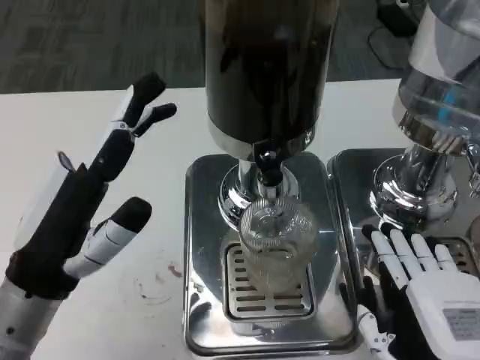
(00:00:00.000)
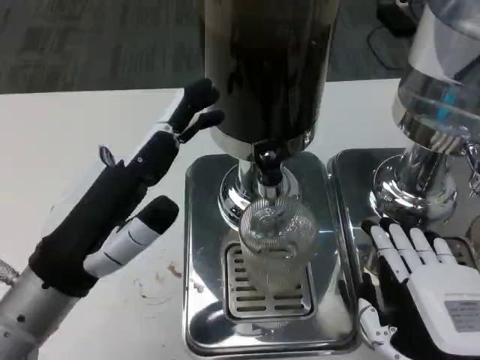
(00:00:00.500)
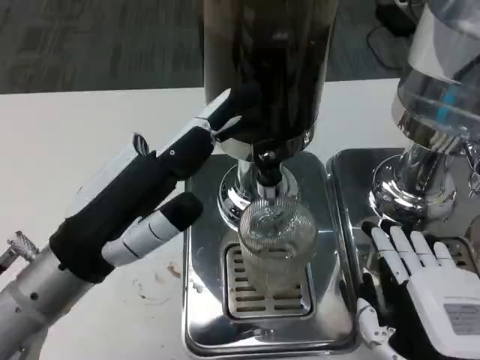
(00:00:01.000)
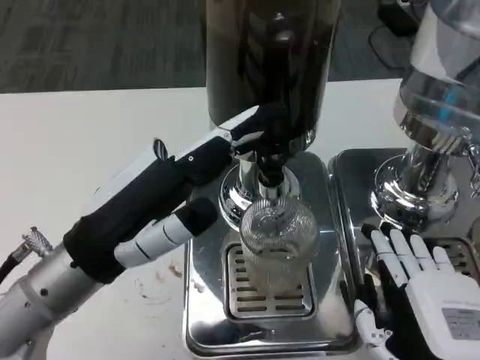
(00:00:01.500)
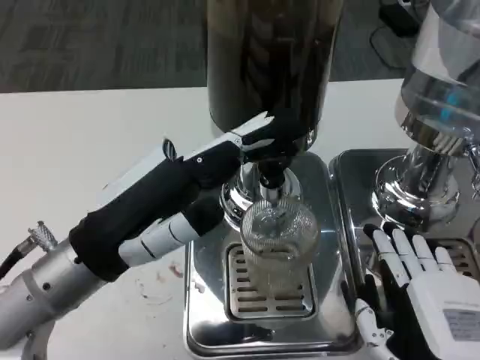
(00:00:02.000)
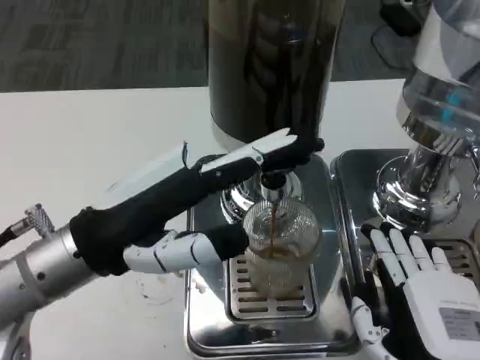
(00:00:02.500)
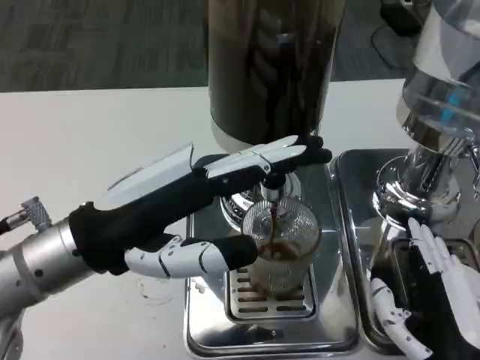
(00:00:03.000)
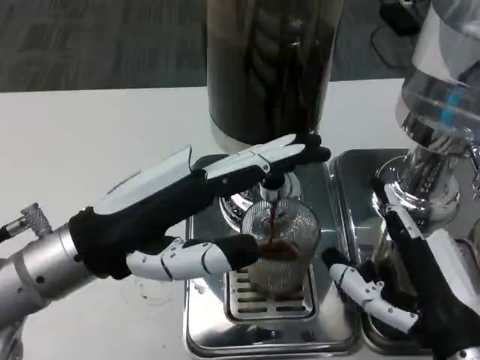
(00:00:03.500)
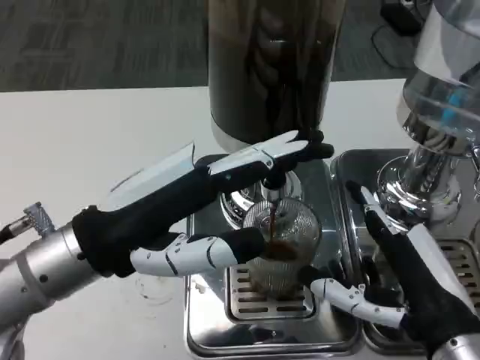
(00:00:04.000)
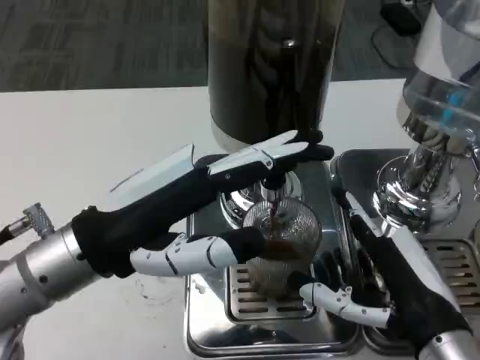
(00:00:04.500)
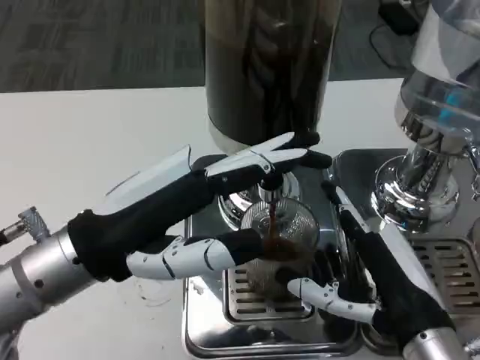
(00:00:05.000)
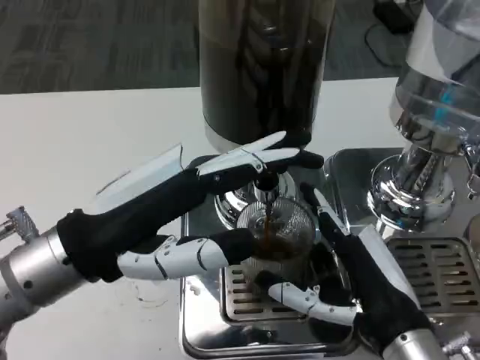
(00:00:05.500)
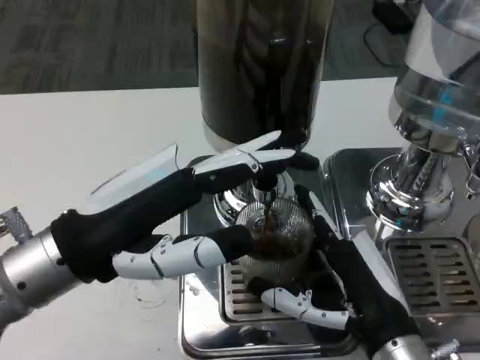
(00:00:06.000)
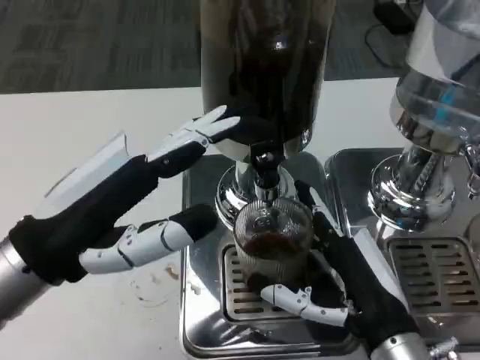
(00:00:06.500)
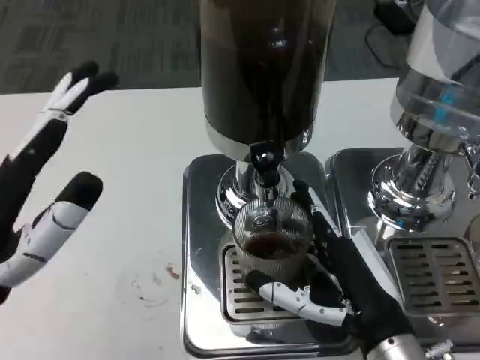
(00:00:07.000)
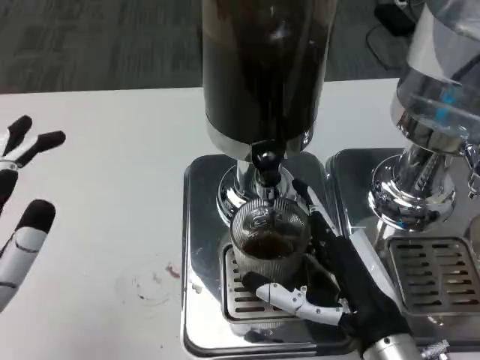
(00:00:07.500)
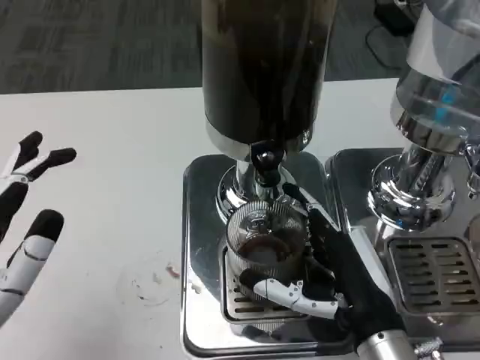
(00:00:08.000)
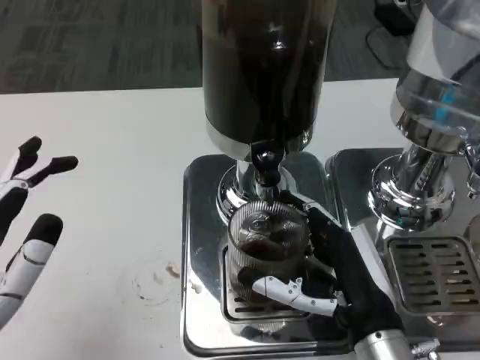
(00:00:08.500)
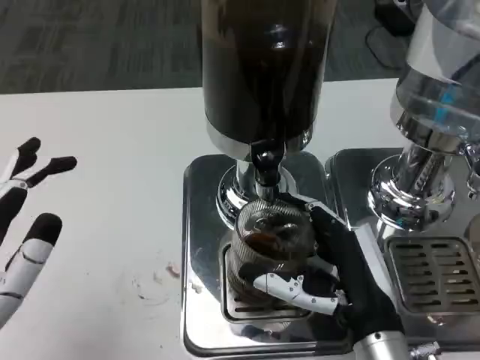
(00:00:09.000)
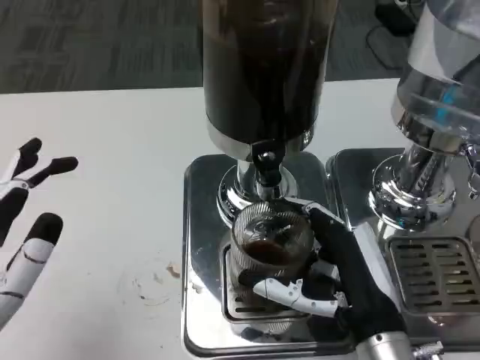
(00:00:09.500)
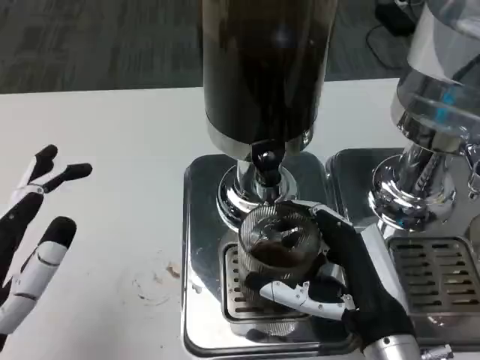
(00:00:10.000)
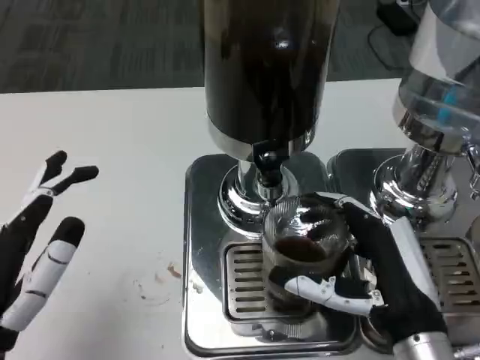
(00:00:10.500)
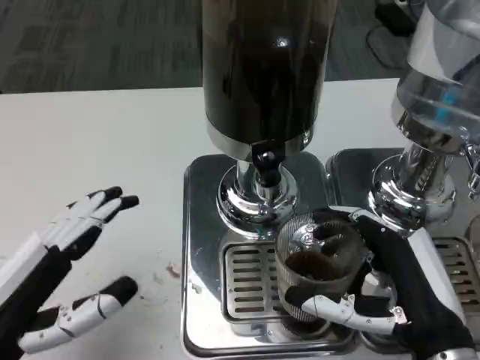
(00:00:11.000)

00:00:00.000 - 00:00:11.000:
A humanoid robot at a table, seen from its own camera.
Task of the whole recording: Grasp the cup under the faucet to collect the drink, then remove the cup.
00:00:00.000 - 00:00:02.000: The left hand moves about 5 cm.
00:00:05.500 - 00:00:07.500: The left hand heads backward, downward and to the left, covering about 10 cm.
00:00:07.500 - 00:00:09.000: The hands make only small movements.
00:00:09.000 - 00:00:11.000: The right hand changes place by approximately 5 cm.

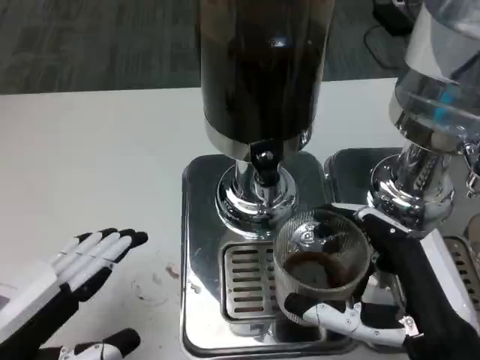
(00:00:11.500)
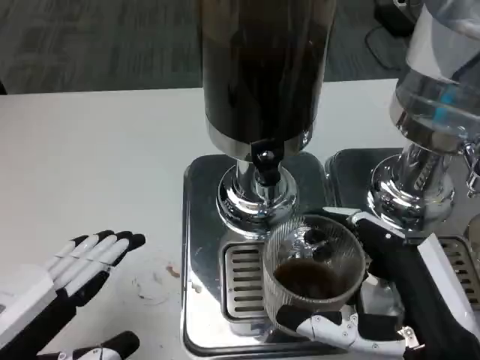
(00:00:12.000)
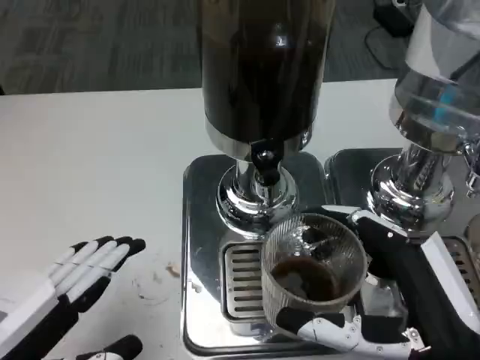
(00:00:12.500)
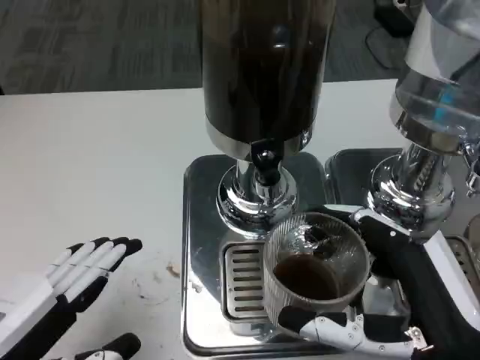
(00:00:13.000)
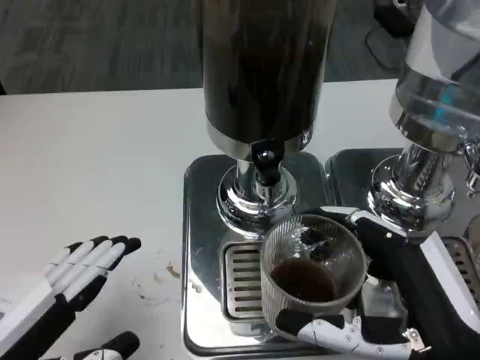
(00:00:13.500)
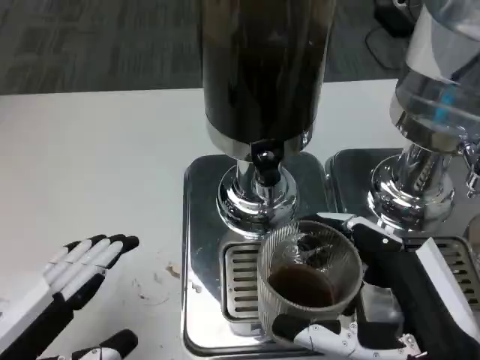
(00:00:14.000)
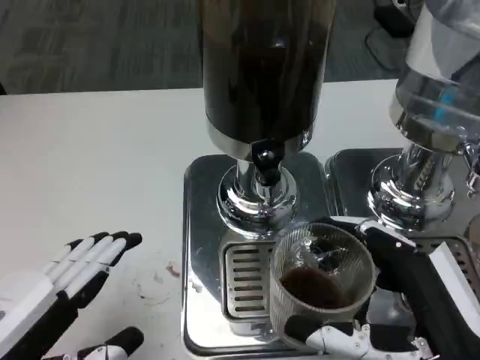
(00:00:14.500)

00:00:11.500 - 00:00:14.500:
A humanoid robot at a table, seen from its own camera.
Task of the whole recording: Grasp the cup under the faucet to collect the drink, then remove the cup.
00:00:11.500 - 00:00:13.000: The hands move only a little.
00:00:13.000 - 00:00:14.500: Both hands stay put.

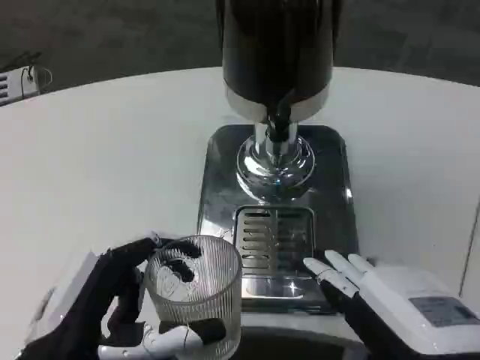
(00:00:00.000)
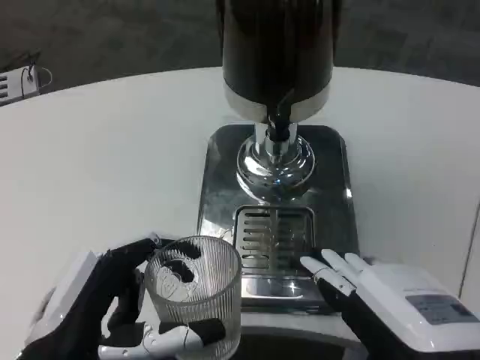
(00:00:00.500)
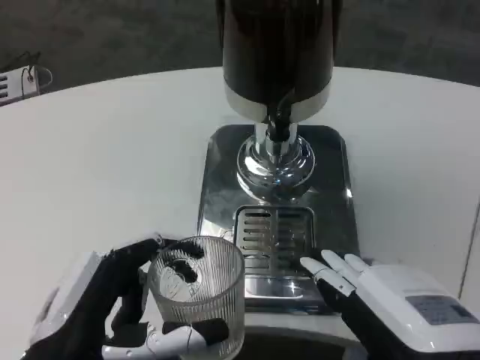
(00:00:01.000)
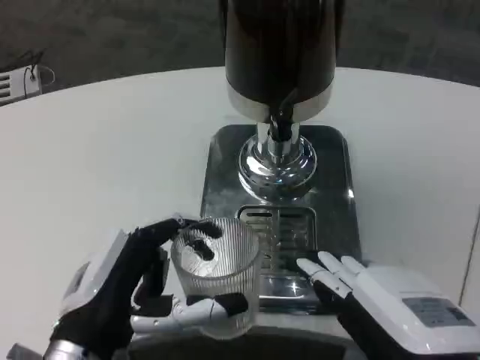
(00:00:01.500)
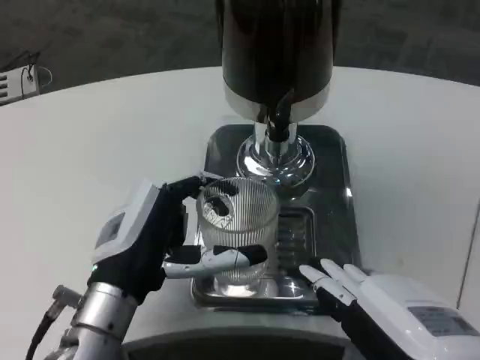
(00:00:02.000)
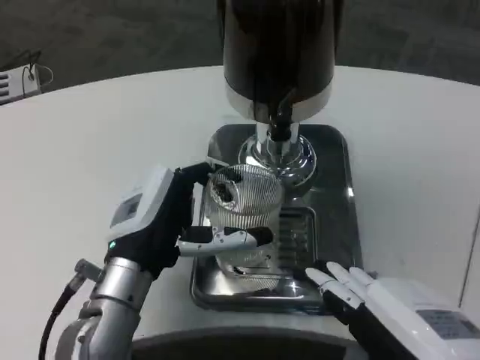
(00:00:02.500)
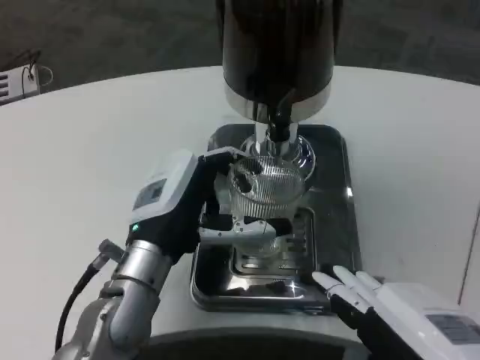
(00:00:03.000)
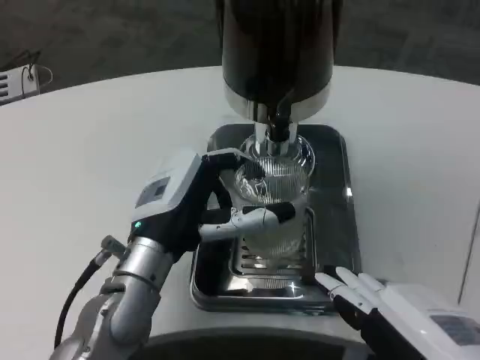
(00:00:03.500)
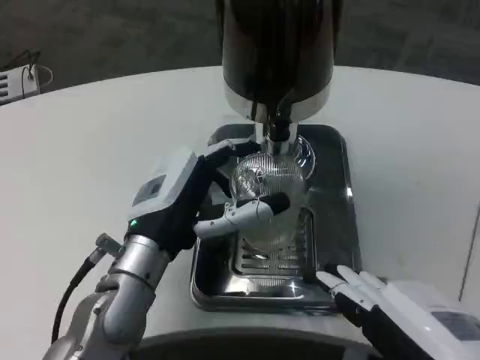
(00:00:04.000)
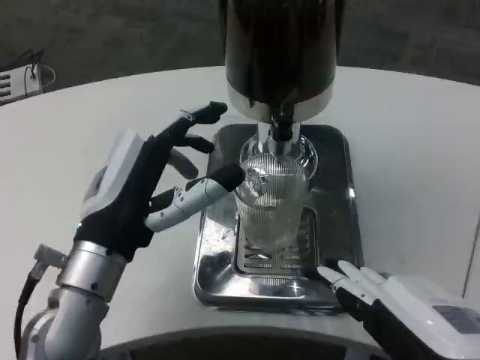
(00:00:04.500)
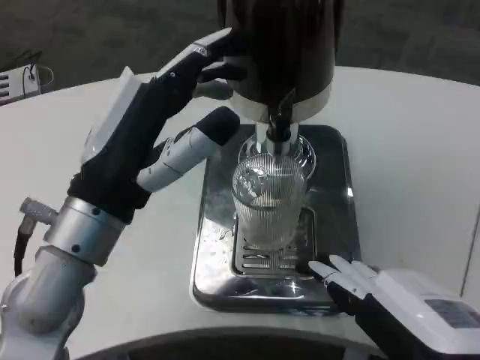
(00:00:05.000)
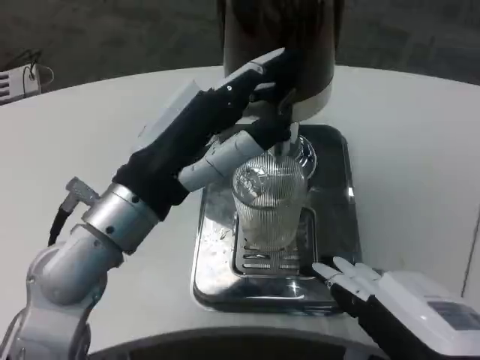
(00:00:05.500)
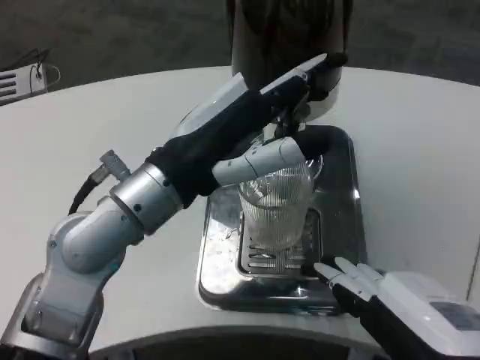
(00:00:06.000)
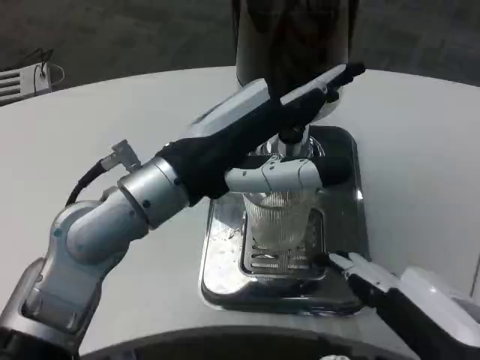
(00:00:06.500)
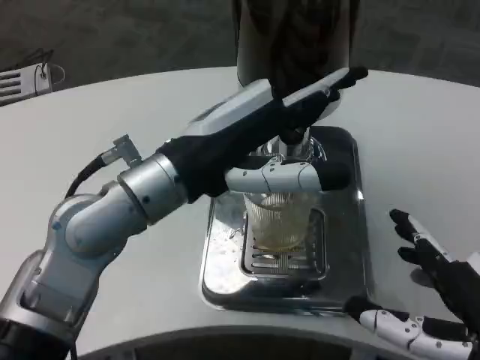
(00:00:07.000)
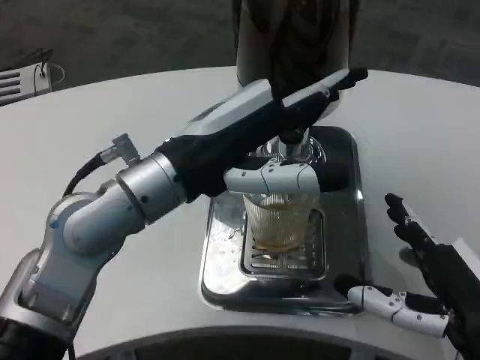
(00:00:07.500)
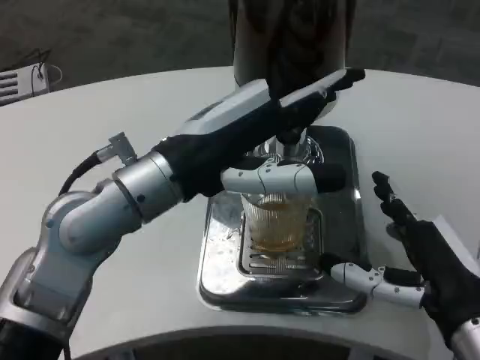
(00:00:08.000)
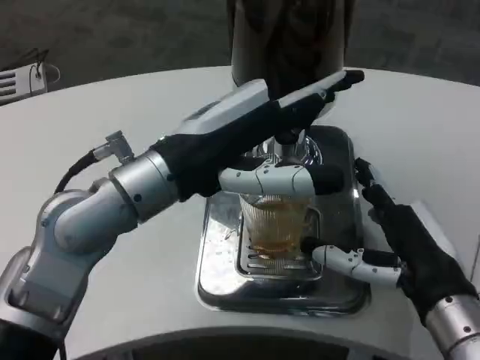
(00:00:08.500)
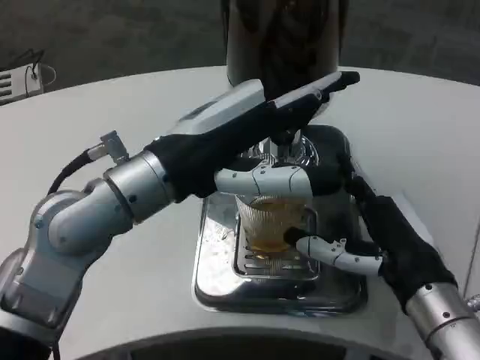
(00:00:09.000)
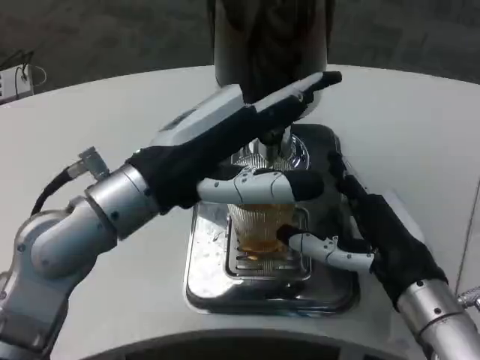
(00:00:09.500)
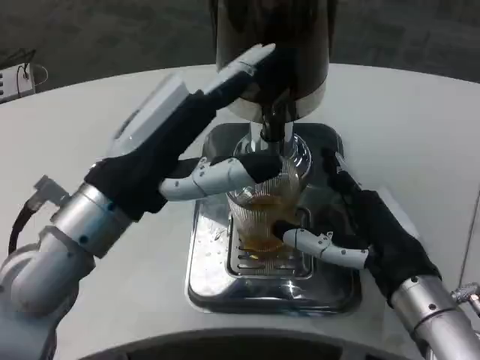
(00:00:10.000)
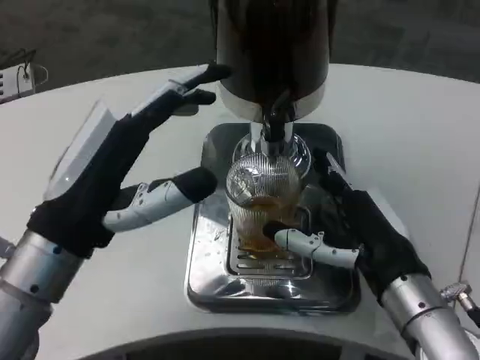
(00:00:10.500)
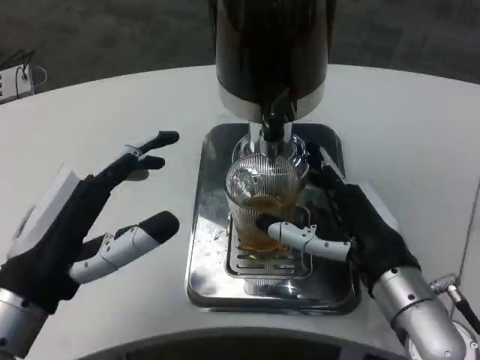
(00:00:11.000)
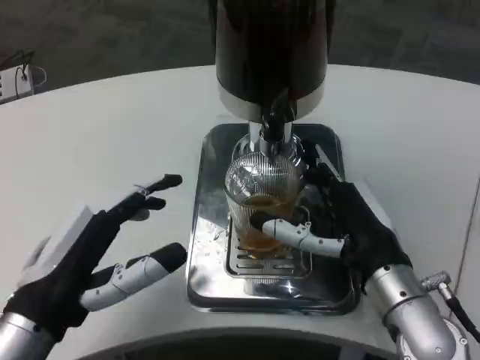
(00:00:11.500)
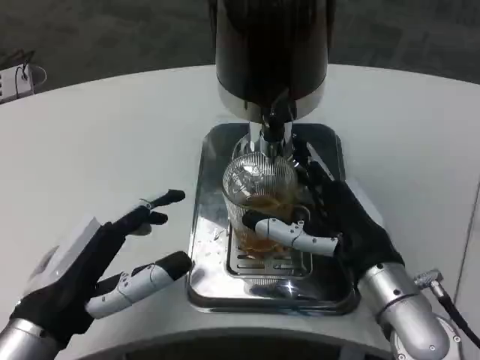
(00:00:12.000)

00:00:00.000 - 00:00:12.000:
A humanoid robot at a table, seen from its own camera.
Task of the whole recording: Grasp the cup under the faucet to collect the drink, then remove the cup.
00:00:00.000 - 00:00:02.000: The left hand goes roughly 10 cm forward.
00:00:02.000 - 00:00:04.000: The left hand changes place by about 5 cm.
00:00:04.000 - 00:00:06.000: The left hand shifts roughly 10 cm upward.
00:00:06.000 - 00:00:08.000: The right hand goes some 10 cm forward.
00:00:08.000 - 00:00:10.000: The right hand changes place by about 5 cm. The left hand shifts by about 5 cm.
00:00:10.000 - 00:00:12.000: The left hand heads downward and to the left, covering about 10 cm.
